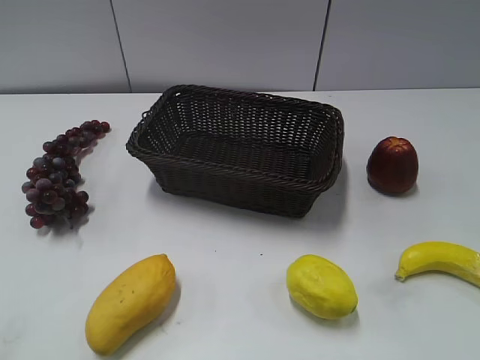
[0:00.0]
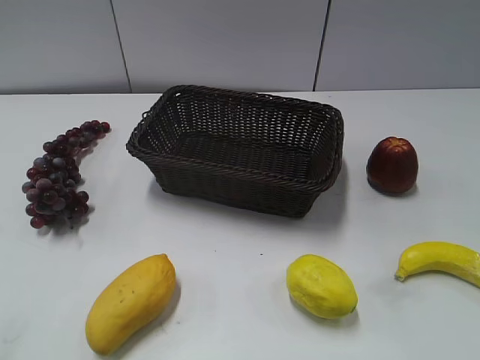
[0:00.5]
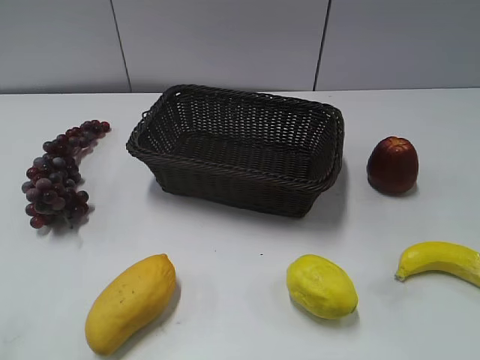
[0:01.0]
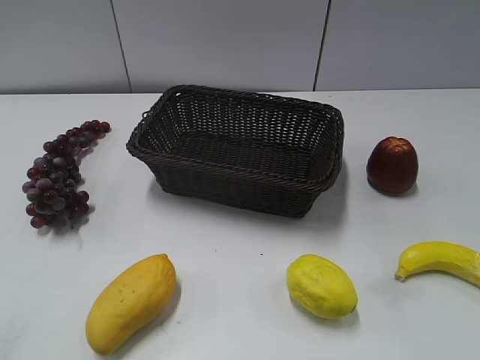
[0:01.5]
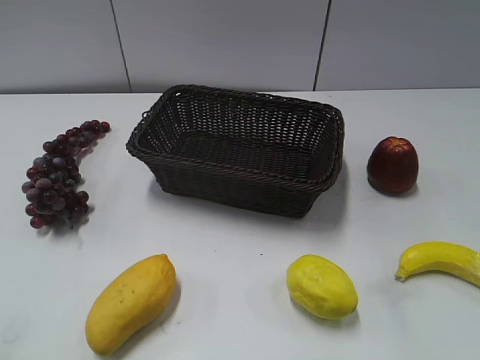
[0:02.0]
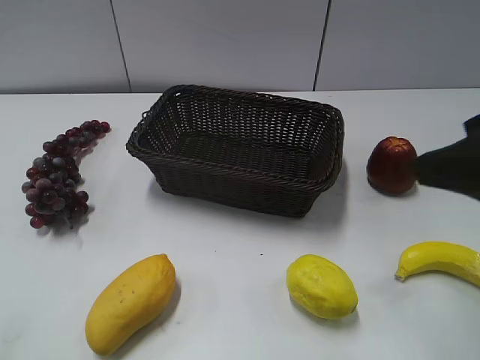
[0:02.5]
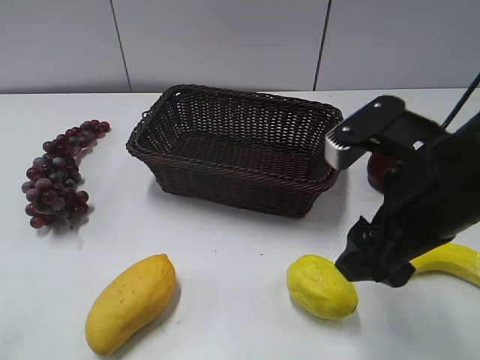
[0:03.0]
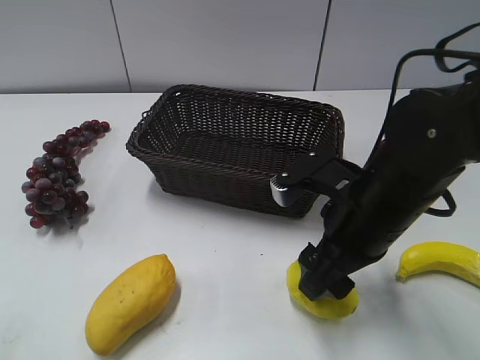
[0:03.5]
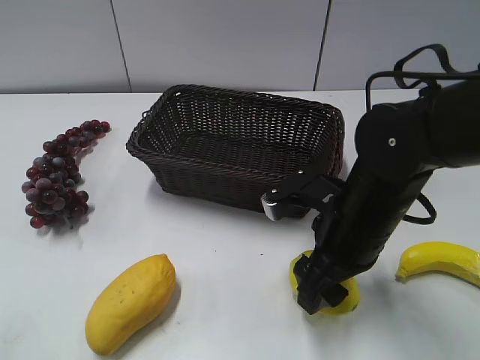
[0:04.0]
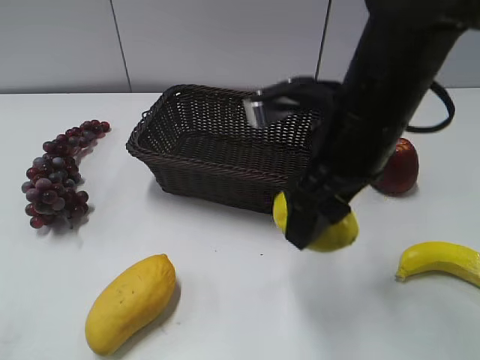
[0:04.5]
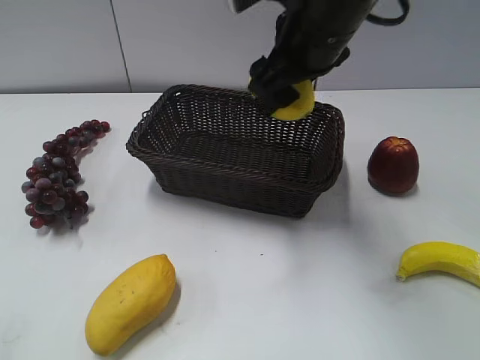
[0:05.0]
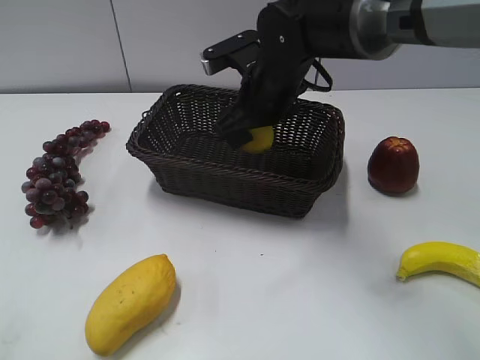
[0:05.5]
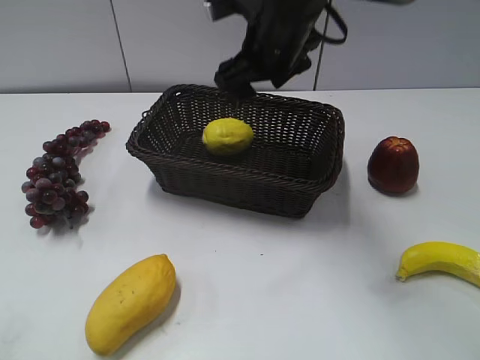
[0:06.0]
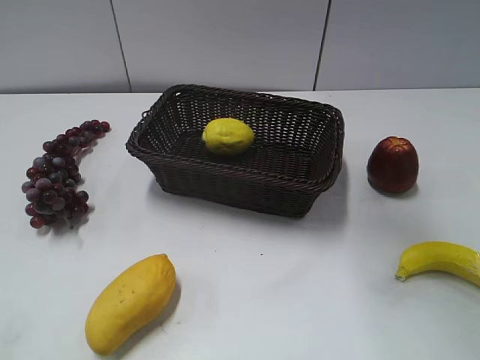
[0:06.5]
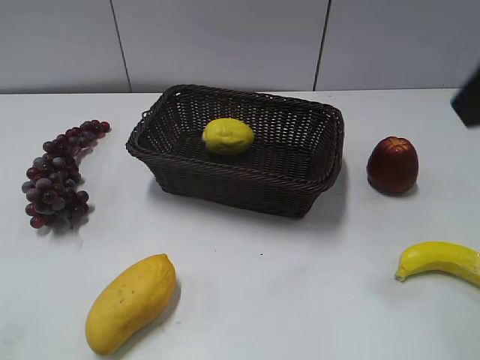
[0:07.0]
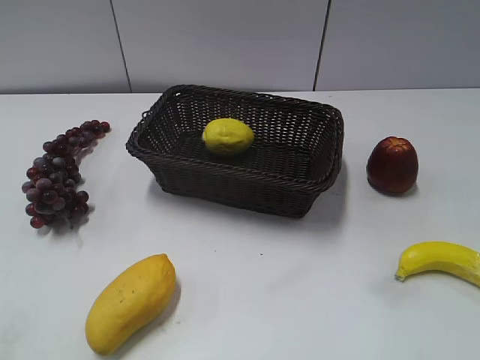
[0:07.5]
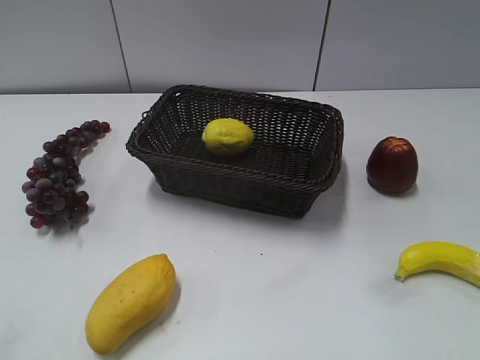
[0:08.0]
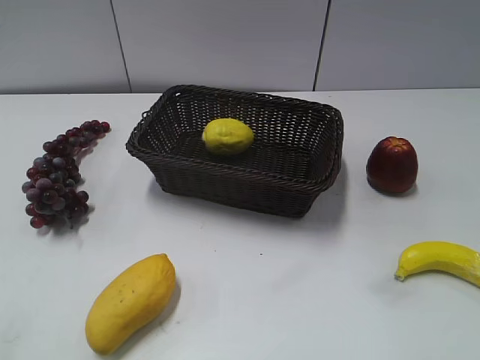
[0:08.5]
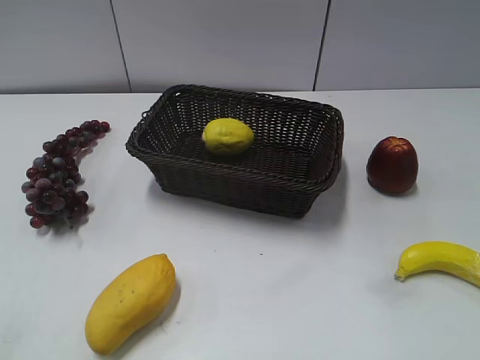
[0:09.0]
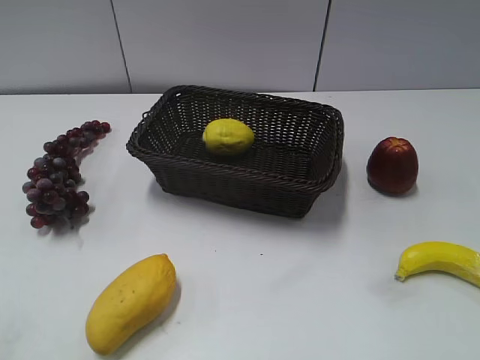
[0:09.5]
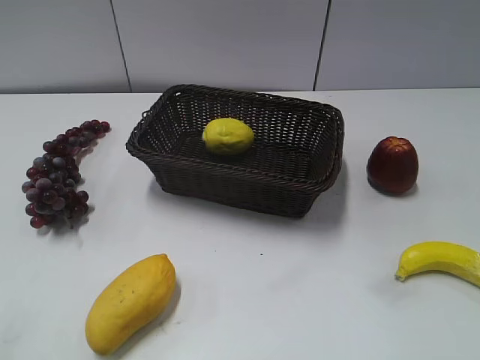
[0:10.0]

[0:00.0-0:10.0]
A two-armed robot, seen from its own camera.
Step, 0:02.5 to 0:04.0: Grasp the lemon with right gripper.
Step, 0:04.5 to 0:05.5: Place the lemon in the basket with right gripper.
0:02.0 to 0:04.0: The right gripper goes about 30 cm downward, to the left and forward, and closes.
0:04.0 to 0:06.0: The right gripper shifts about 20 cm forward, upward and to the left, and opens up.
0:06.0 to 0:08.0: The right gripper moves backward and to the right, some 40 cm, and closes up.

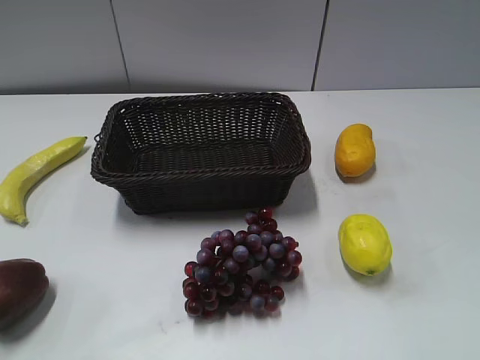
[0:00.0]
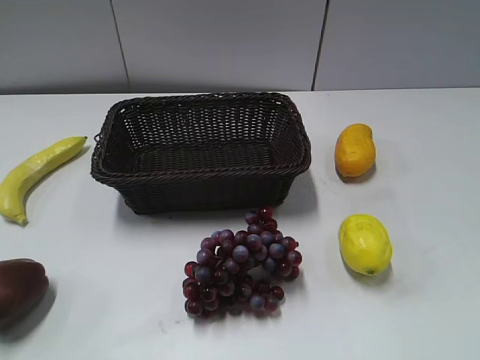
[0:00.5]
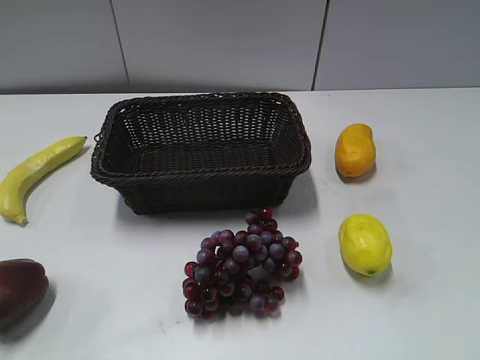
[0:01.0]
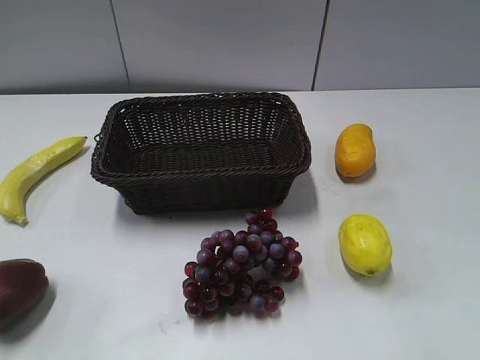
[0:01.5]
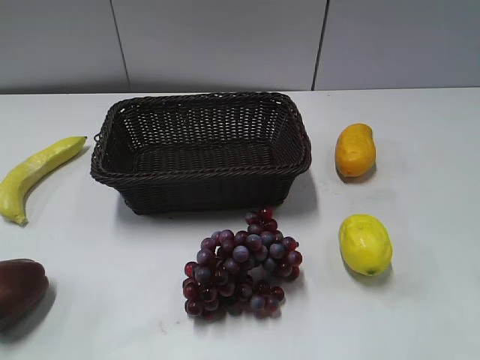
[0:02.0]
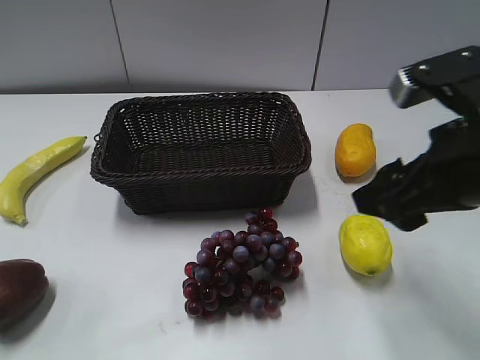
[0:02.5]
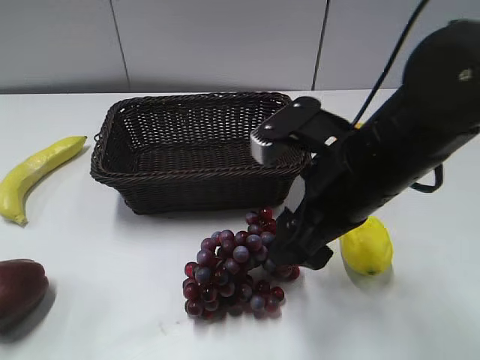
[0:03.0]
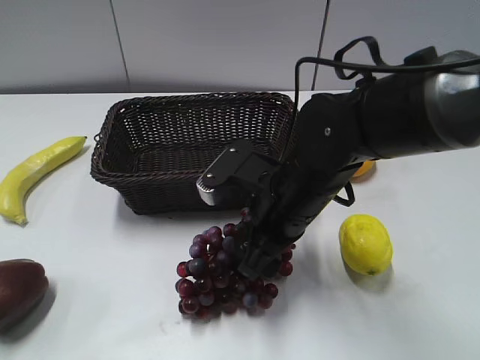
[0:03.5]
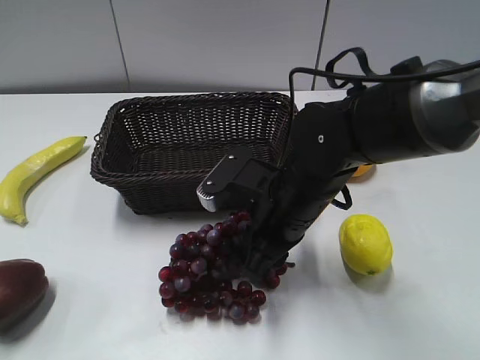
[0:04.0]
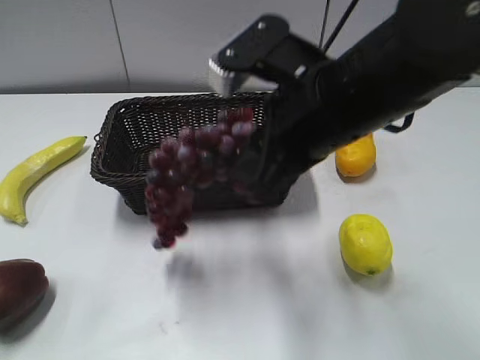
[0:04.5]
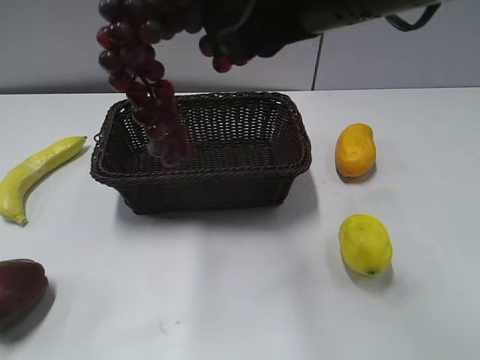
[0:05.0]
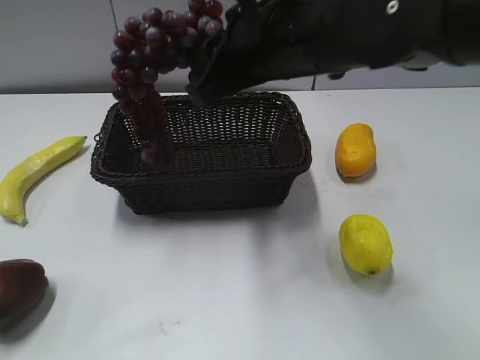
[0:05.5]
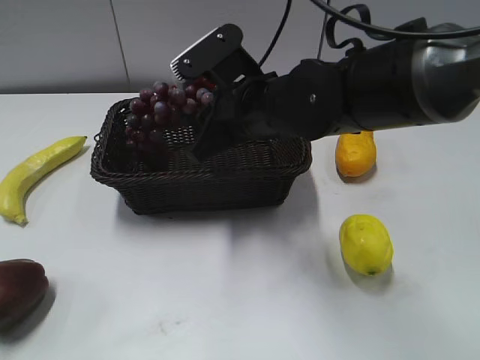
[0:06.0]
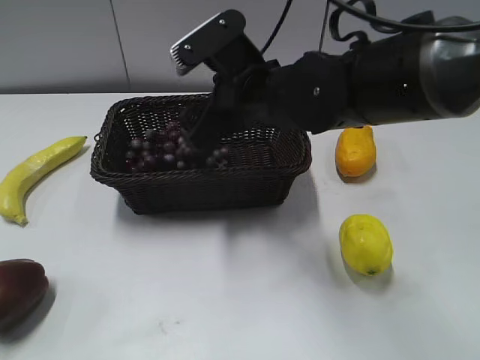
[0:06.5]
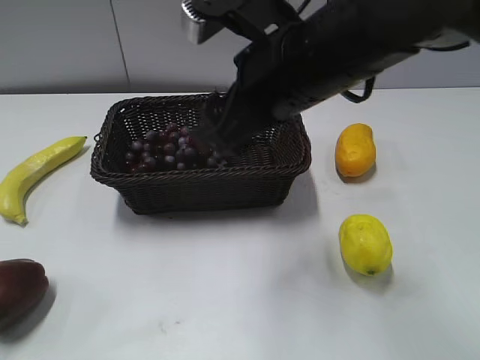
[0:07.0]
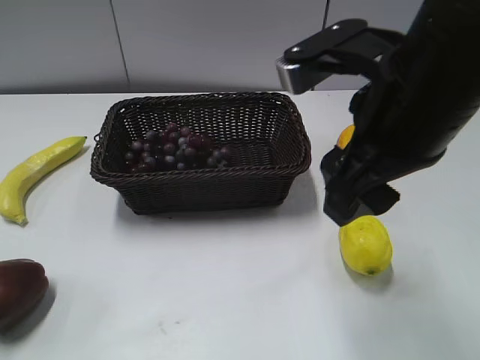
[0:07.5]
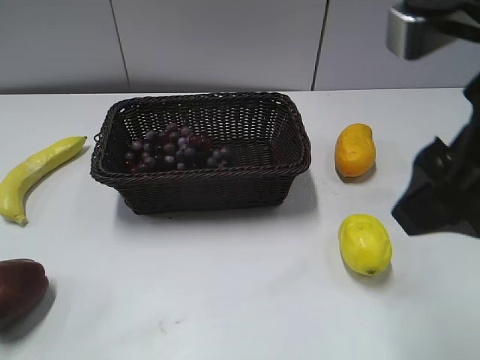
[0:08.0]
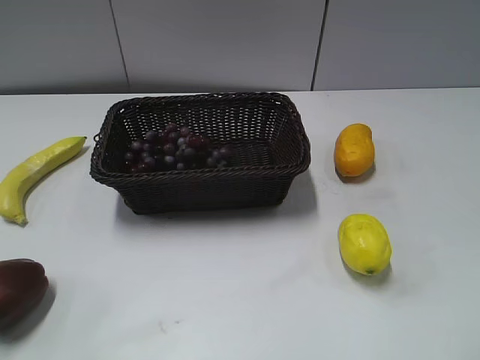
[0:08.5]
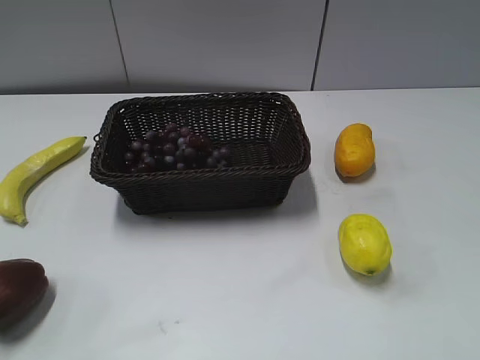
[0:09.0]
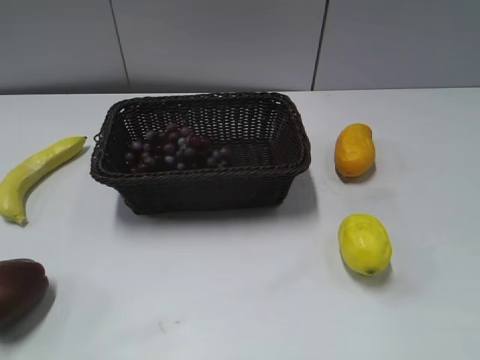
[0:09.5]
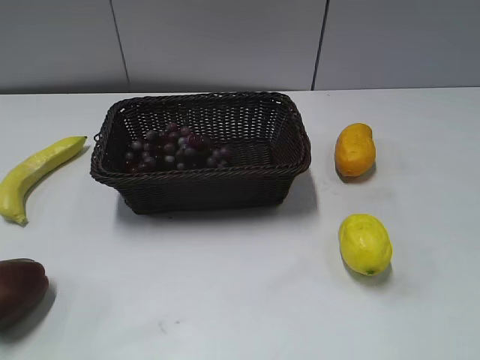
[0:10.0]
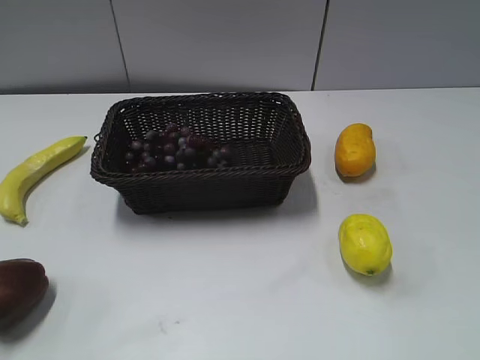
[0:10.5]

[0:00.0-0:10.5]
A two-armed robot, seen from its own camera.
Step, 0:02.5 to 0:04.0: Grasp the grape with right gripper.
Step, 0:04.5 to 0:07.0: Place the grape in the basket with right gripper.
0:02.0 to 0:04.0: The right gripper is displaced to the left, downward and forward by roughly 30 cm, and closes.
0:04.0 to 0:06.5: The right gripper moves upward and forward, approximately 10 cm, and opens its fingers.
0:06.5 to 0:08.5: The right gripper travels backward and to the right by approximately 30 cm.
